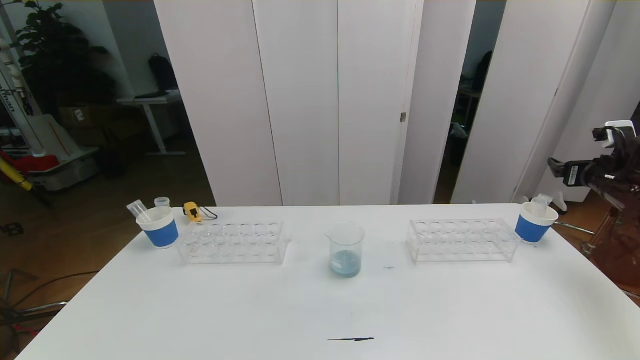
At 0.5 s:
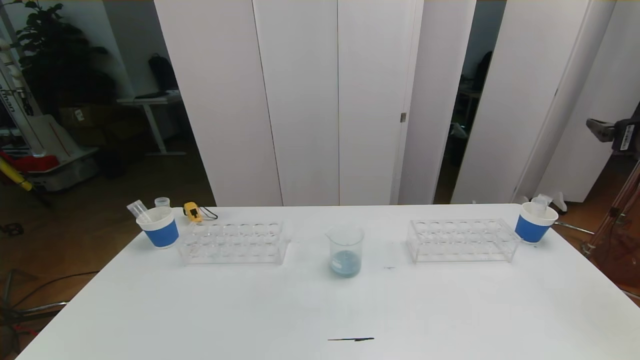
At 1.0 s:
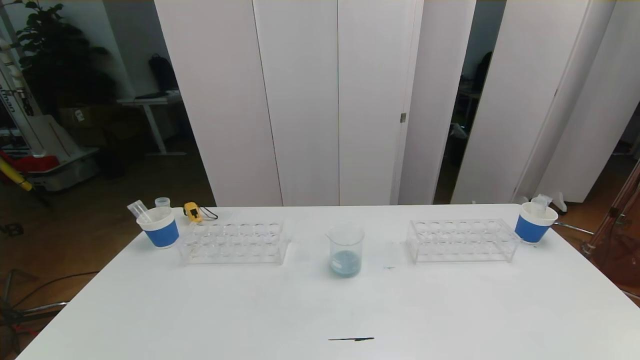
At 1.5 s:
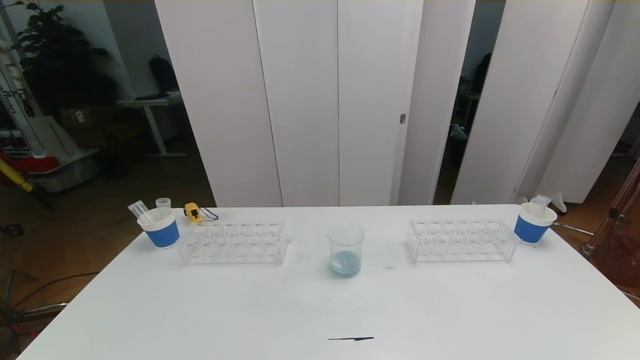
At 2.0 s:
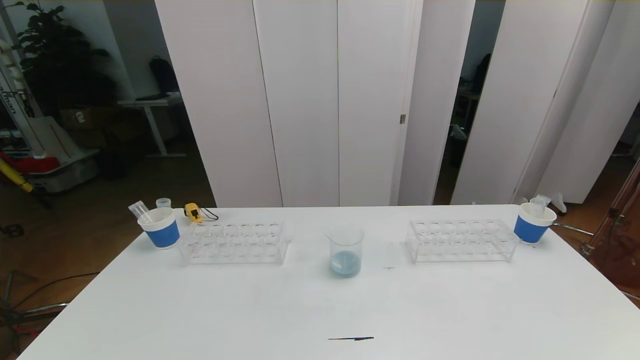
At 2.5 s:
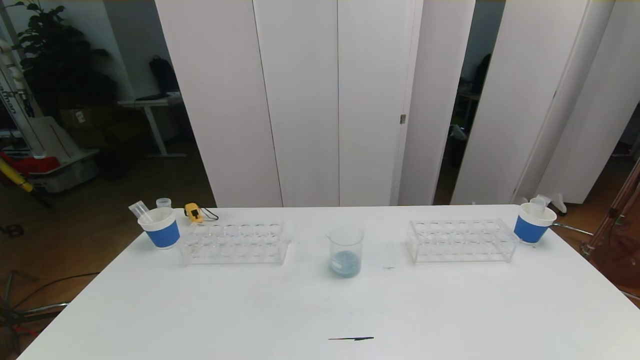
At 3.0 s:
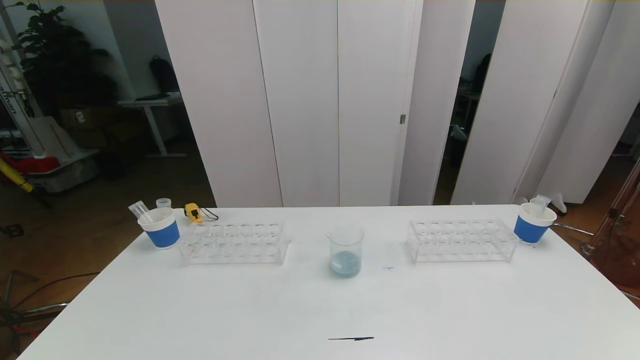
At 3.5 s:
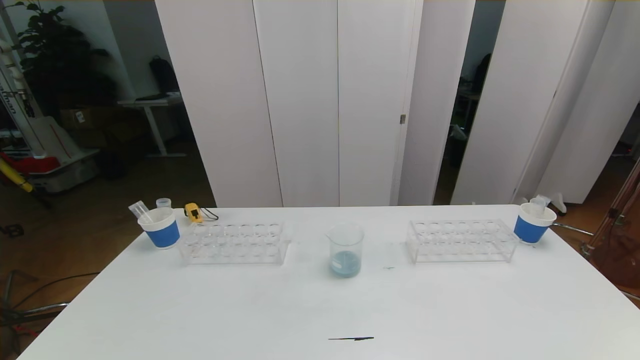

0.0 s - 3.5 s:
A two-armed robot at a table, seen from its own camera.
Task of the whole recording: pick up the test tube with red pigment the test tube with blue pigment and the test tube with white pigment by grippers and pour them into the beaker.
0.0 s - 2.0 s: The right gripper moves backward, roughly 40 cm.

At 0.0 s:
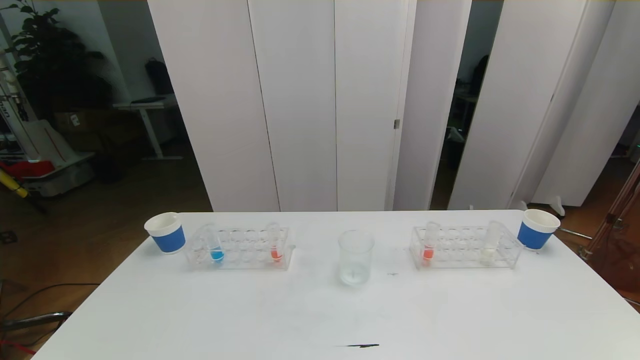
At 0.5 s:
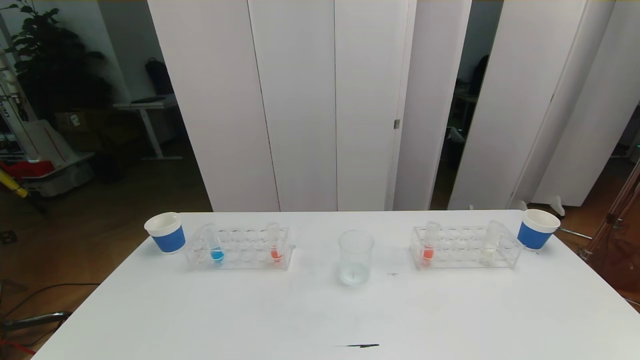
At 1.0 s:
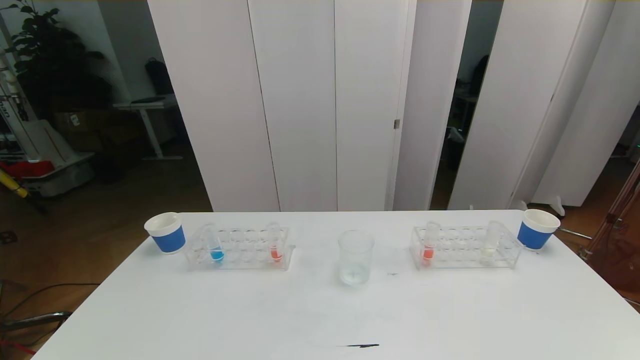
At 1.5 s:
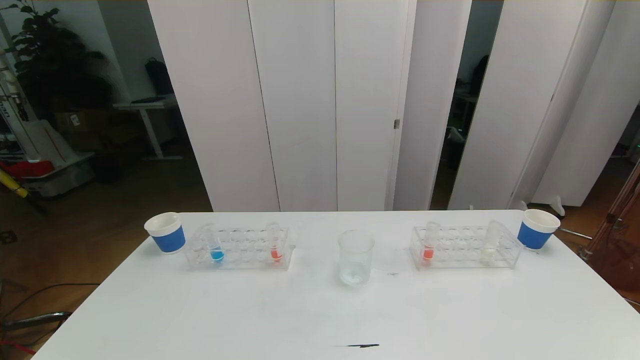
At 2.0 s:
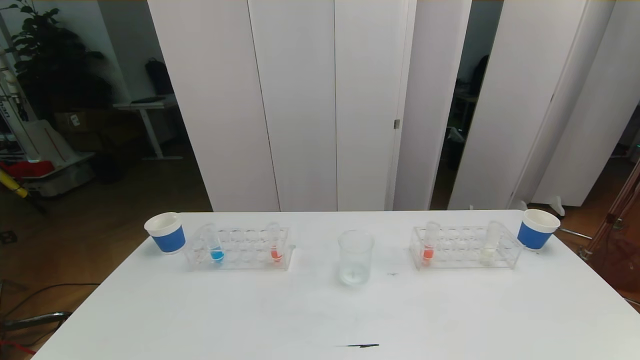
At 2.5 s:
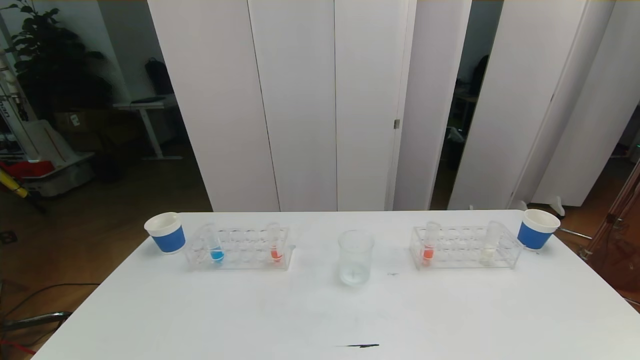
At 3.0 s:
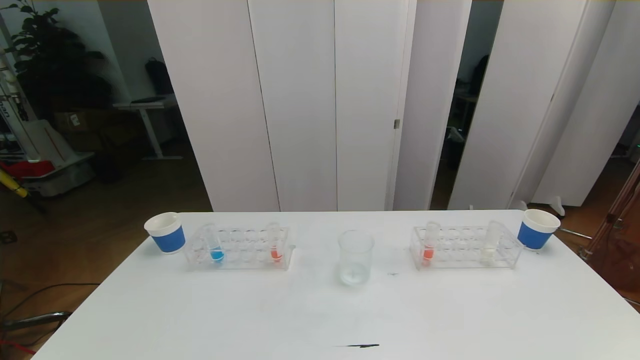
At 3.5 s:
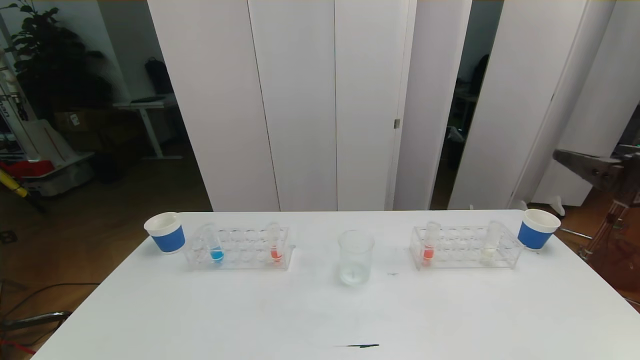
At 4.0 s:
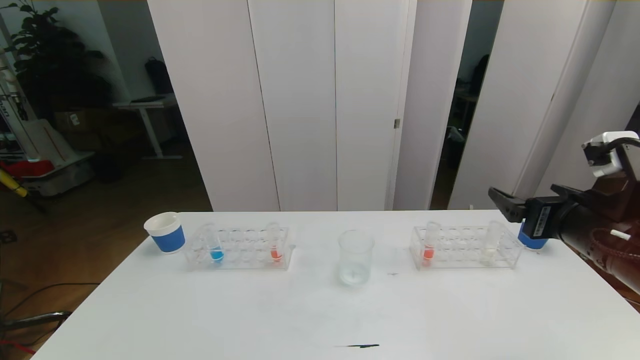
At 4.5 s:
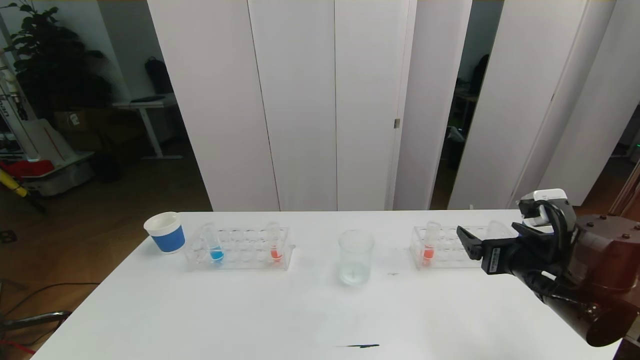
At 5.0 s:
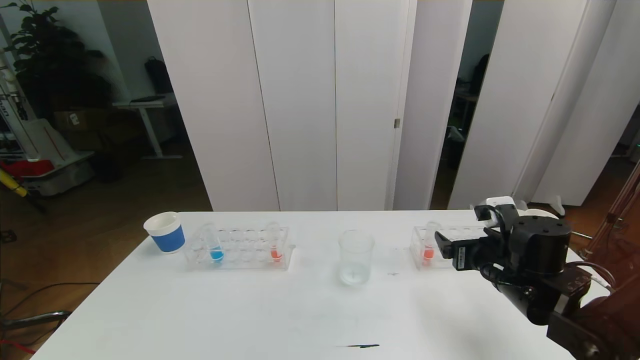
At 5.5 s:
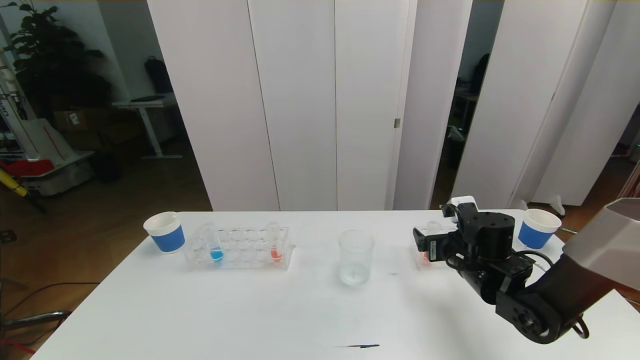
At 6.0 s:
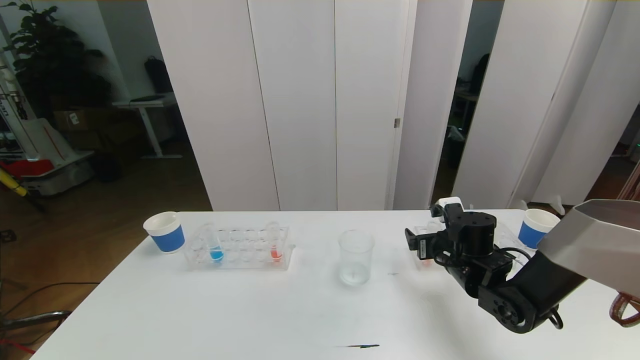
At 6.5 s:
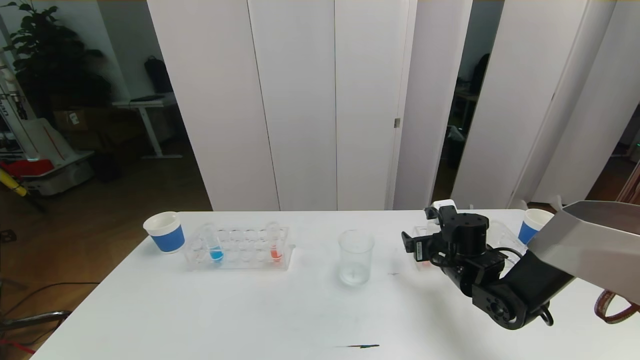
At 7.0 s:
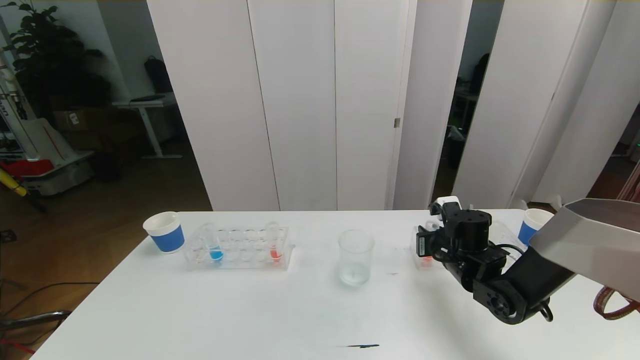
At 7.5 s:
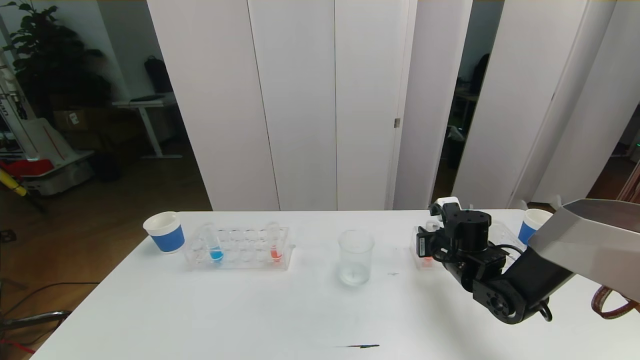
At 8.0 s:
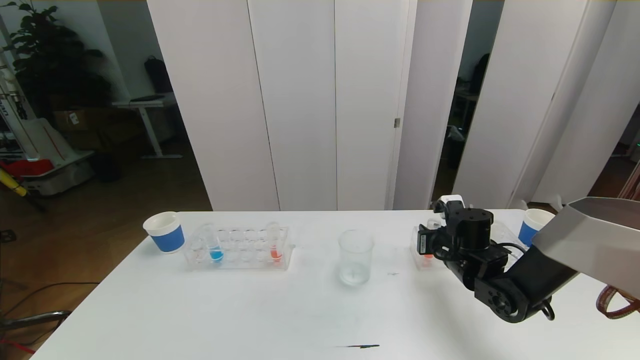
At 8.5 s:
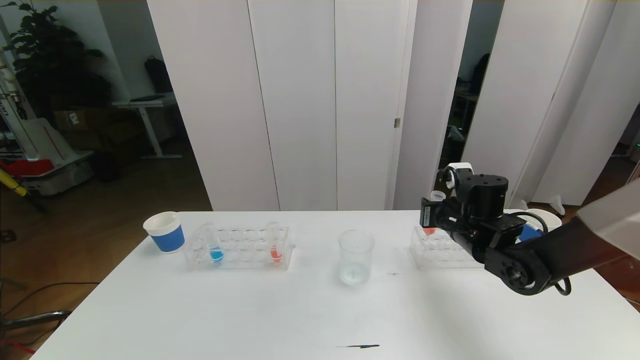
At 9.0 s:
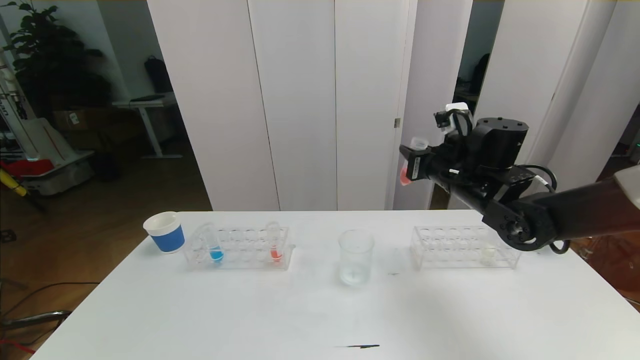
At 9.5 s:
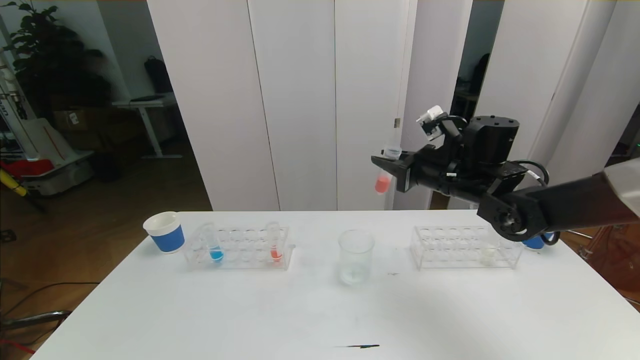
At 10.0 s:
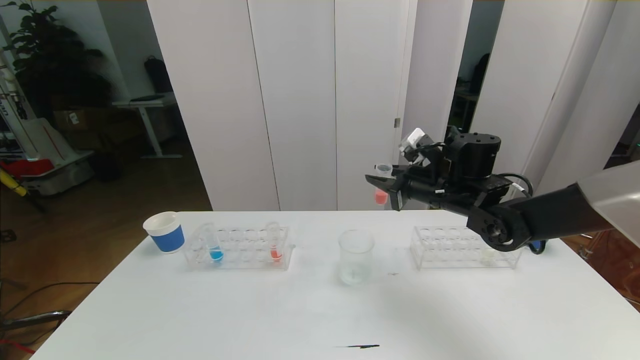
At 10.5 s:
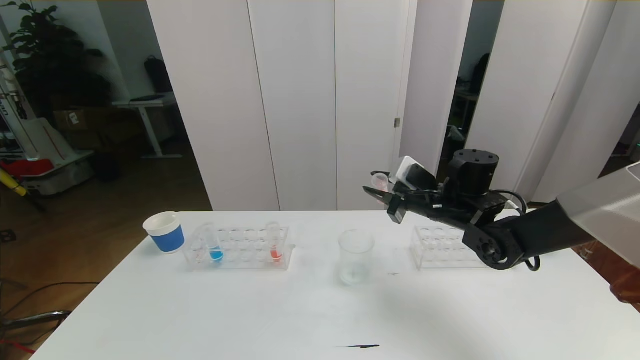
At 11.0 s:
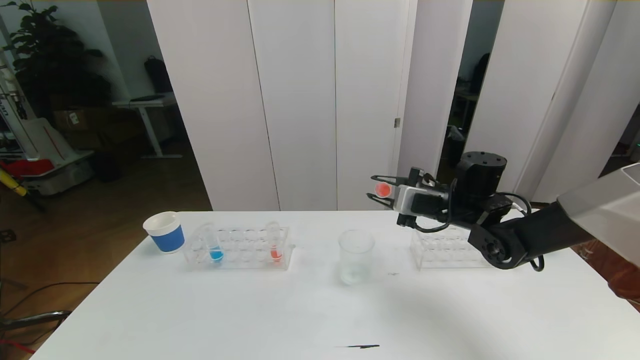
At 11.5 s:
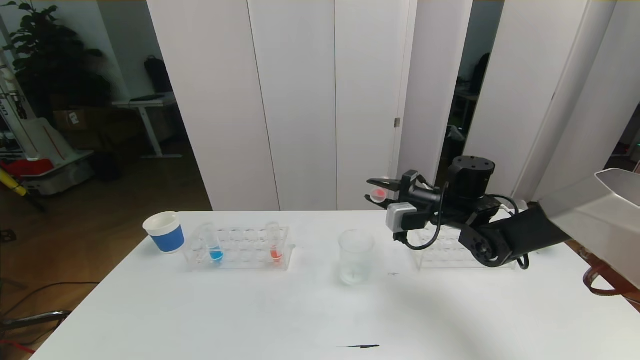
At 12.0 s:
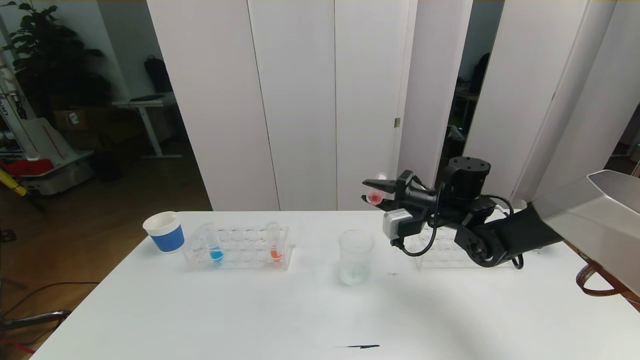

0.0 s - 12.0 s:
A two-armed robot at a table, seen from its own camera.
Task of the whole recording: pick up the test tube with red pigment the test tube with blue pigment and the test tube with white pigment by grippers and pour them into the beaker.
2.0 s - 4.0 s: The right gripper heads forward, covering some 25 cm.
4.0 s - 6.0 s: The right gripper heads downward, forward and to the left, covering about 20 cm.
6.0 s - 8.0 s: The right gripper closes.
8.0 s - 10.0 s: The right gripper is displaced upward by approximately 10 cm.

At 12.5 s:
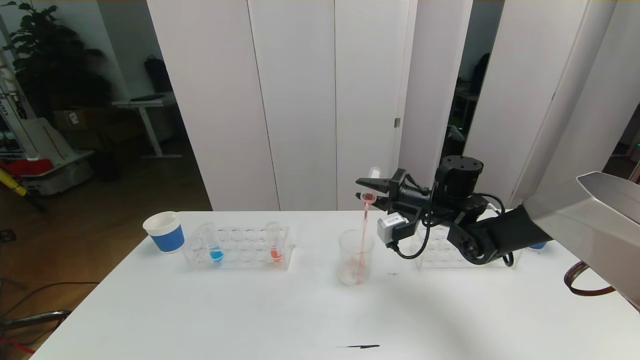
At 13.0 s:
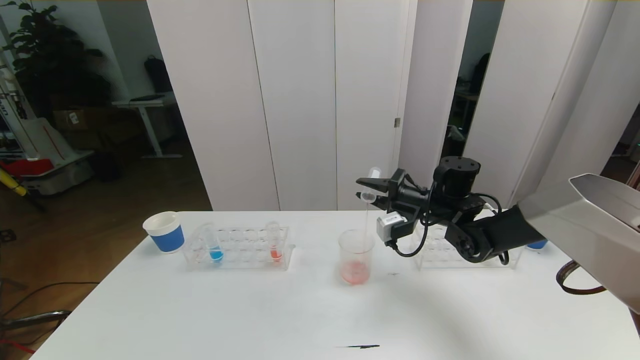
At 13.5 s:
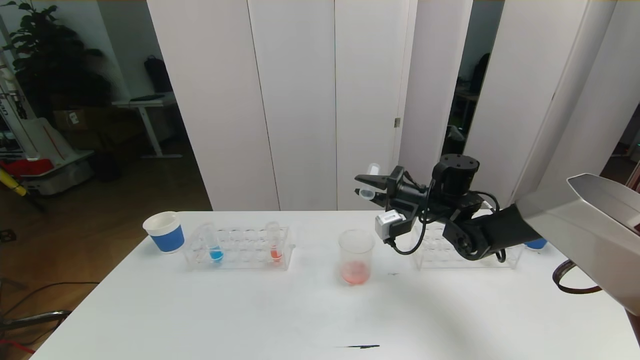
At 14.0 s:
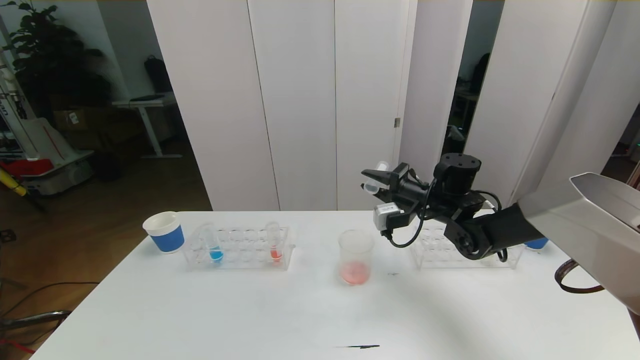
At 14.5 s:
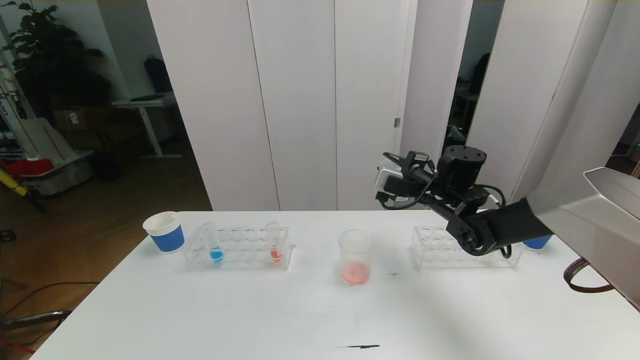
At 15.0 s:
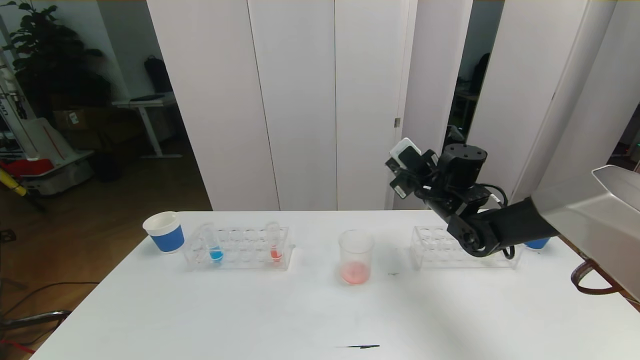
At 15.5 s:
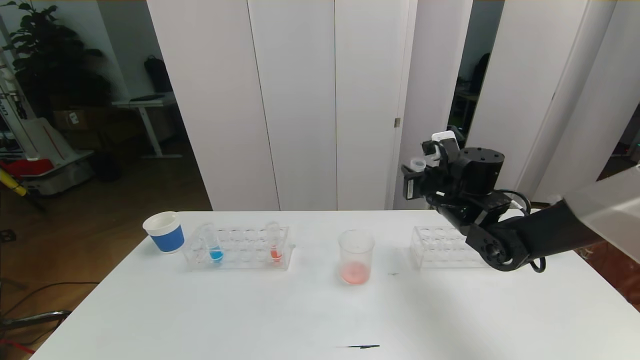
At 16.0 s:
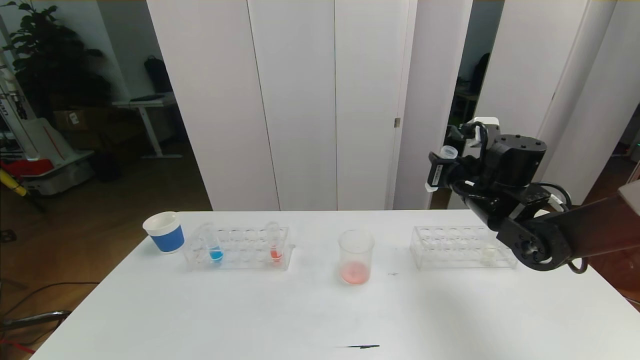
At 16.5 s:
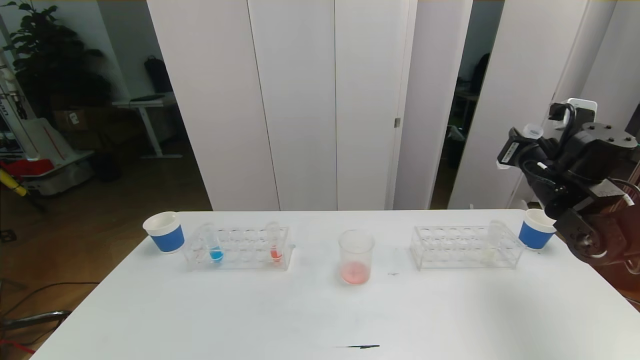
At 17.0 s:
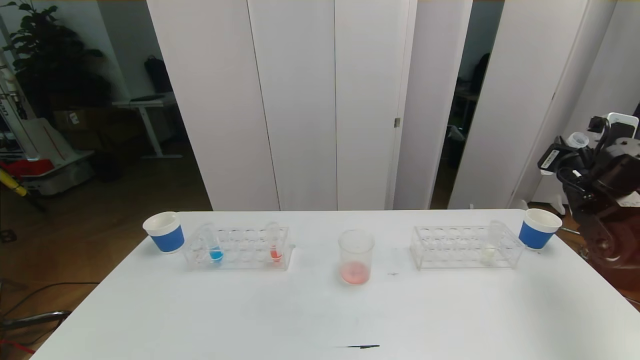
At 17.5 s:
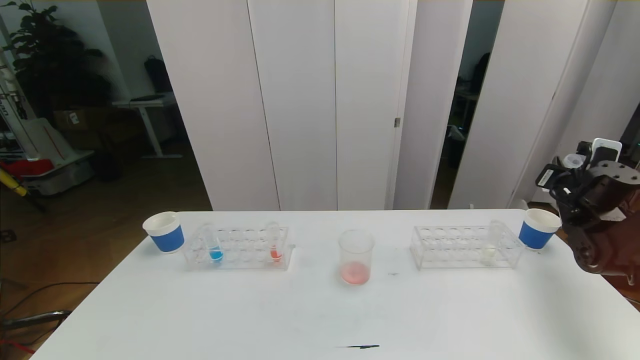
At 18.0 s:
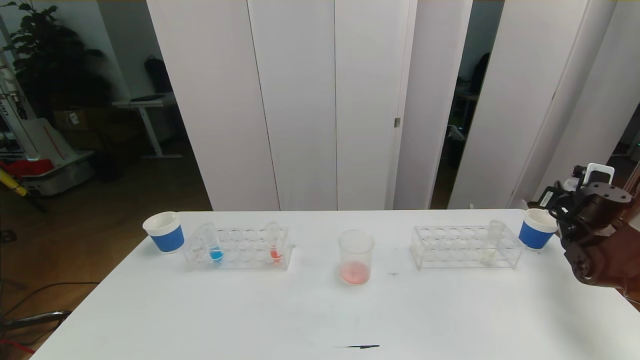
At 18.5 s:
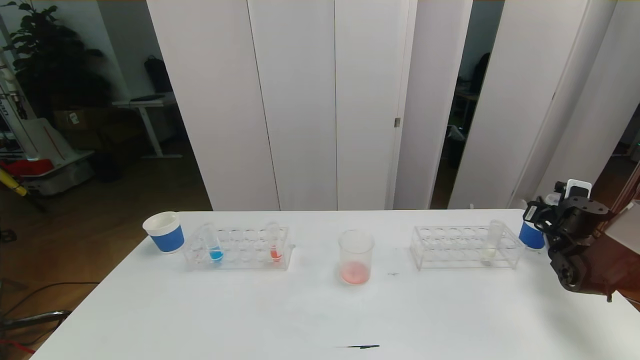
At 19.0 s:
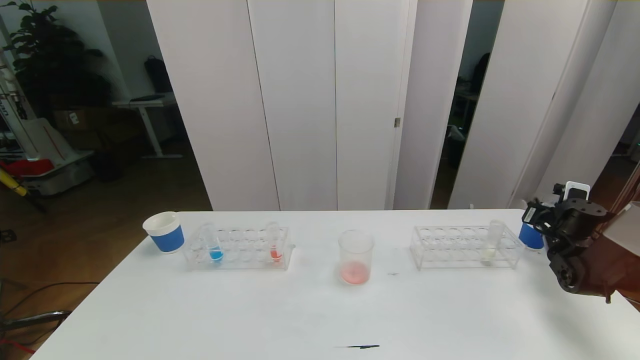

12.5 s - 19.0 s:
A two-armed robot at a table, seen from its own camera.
Task of the whole recording: pick up the test tube with red pigment the test tube with blue pigment and the test tube with white pigment by grippers and pour them into the beaker.
14.5 s - 17.0 s: The right gripper goes roughly 20 cm to the right.
17.0 s - 19.0 s: The right gripper travels downward and to the right by about 15 cm.
